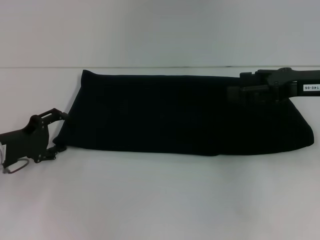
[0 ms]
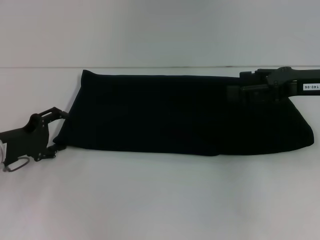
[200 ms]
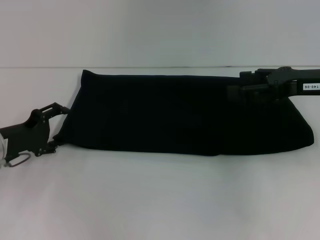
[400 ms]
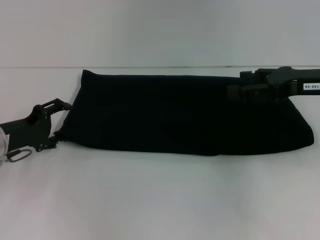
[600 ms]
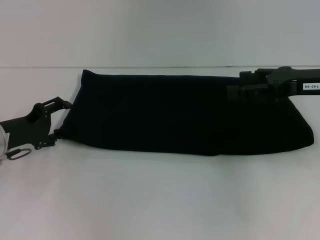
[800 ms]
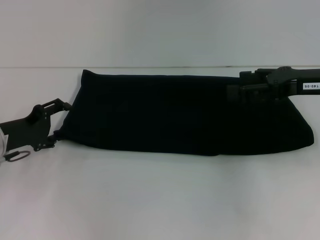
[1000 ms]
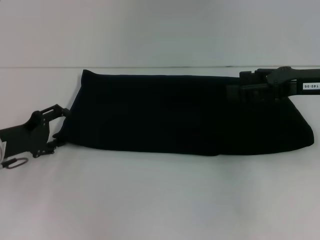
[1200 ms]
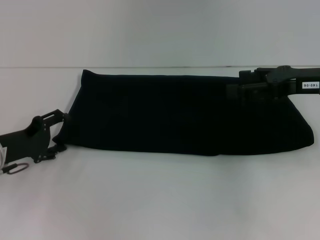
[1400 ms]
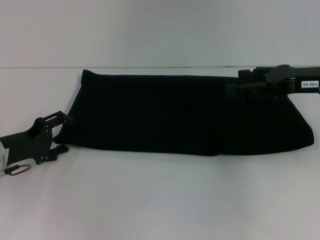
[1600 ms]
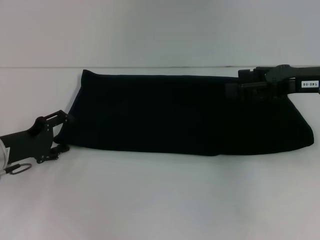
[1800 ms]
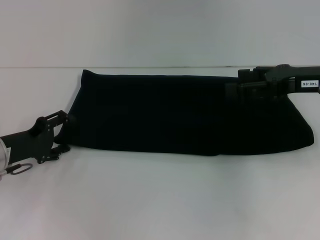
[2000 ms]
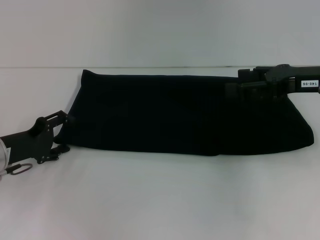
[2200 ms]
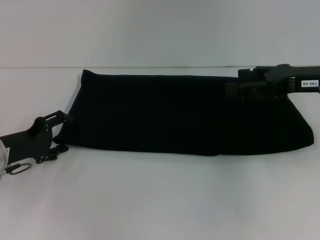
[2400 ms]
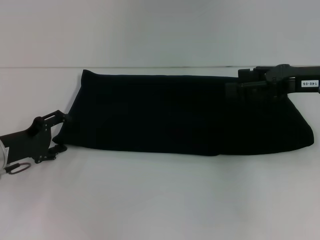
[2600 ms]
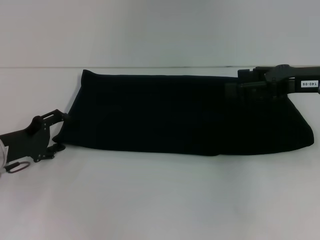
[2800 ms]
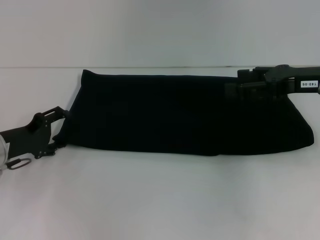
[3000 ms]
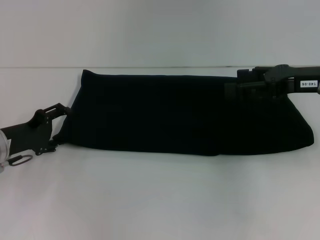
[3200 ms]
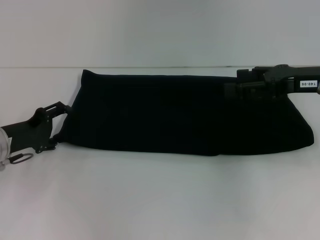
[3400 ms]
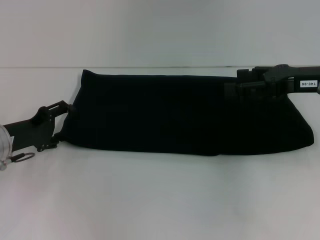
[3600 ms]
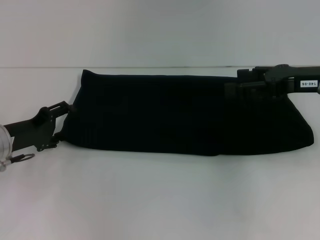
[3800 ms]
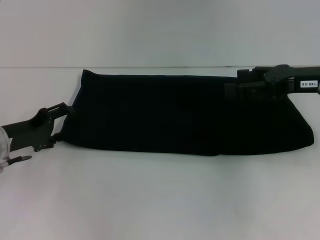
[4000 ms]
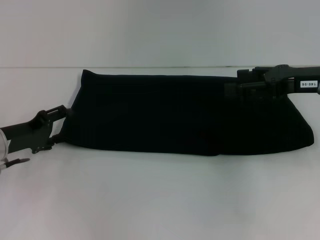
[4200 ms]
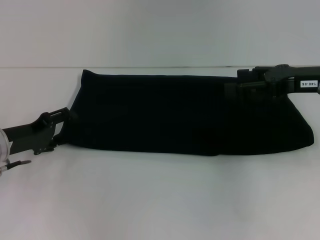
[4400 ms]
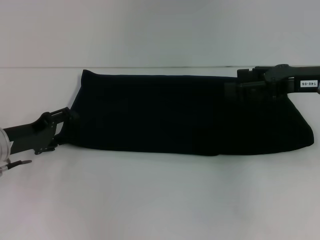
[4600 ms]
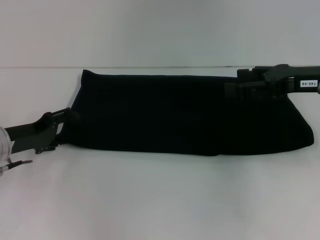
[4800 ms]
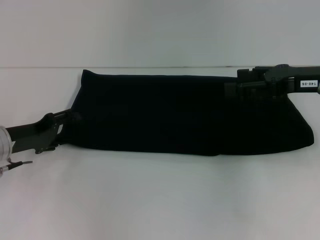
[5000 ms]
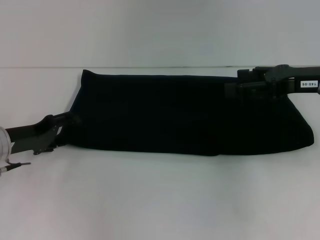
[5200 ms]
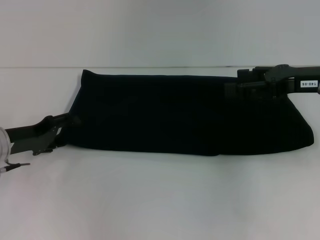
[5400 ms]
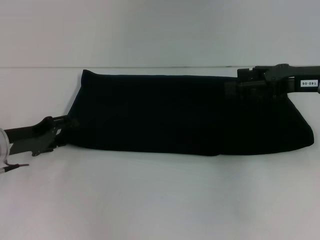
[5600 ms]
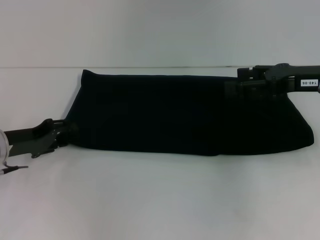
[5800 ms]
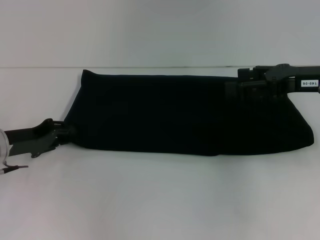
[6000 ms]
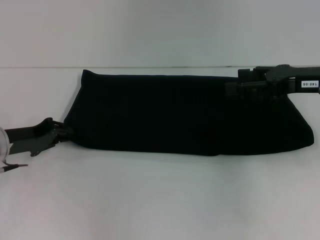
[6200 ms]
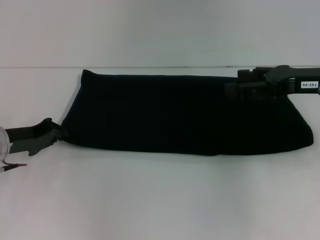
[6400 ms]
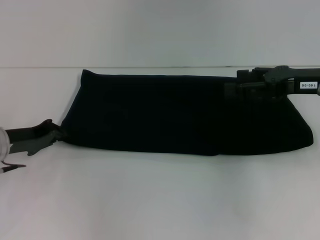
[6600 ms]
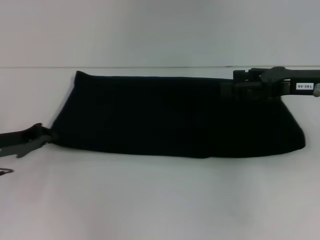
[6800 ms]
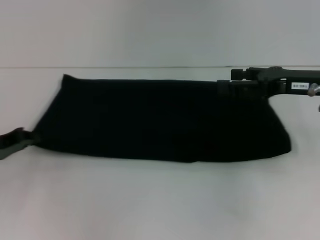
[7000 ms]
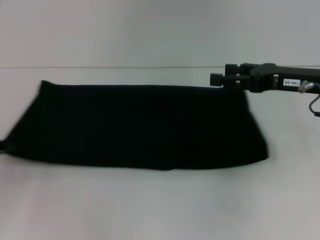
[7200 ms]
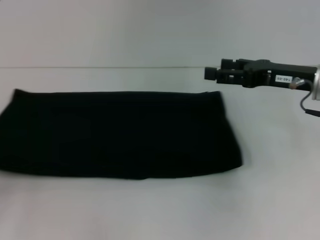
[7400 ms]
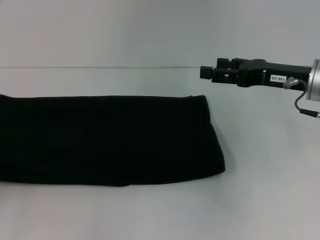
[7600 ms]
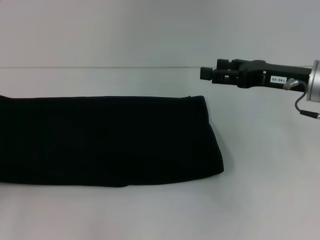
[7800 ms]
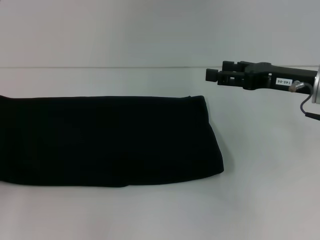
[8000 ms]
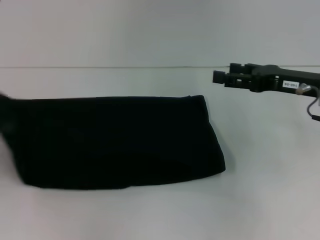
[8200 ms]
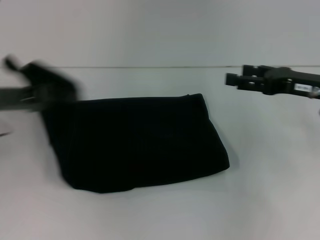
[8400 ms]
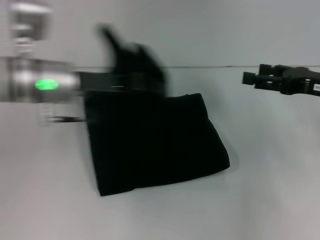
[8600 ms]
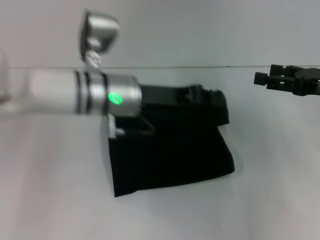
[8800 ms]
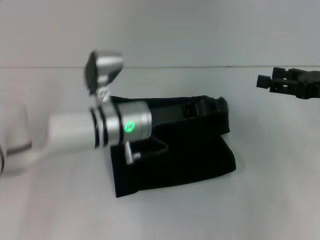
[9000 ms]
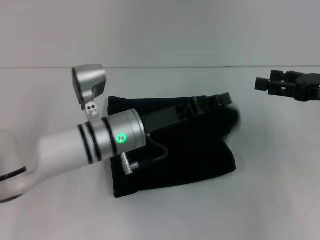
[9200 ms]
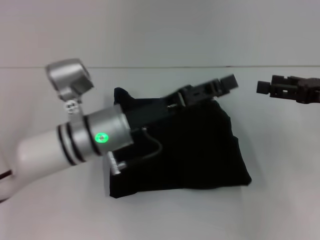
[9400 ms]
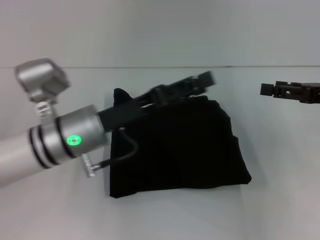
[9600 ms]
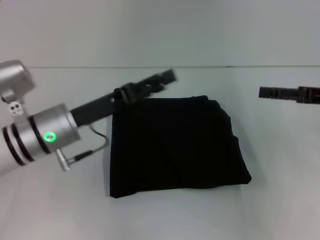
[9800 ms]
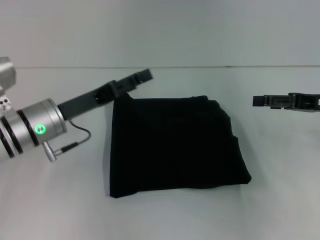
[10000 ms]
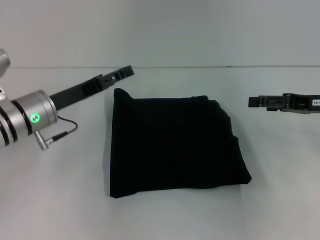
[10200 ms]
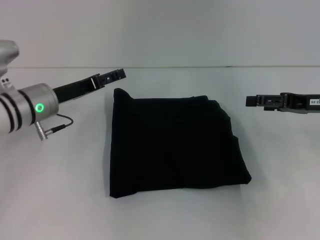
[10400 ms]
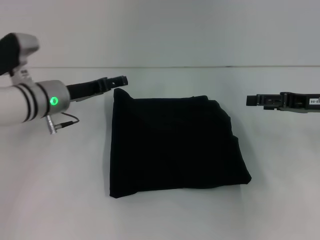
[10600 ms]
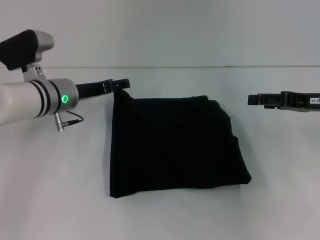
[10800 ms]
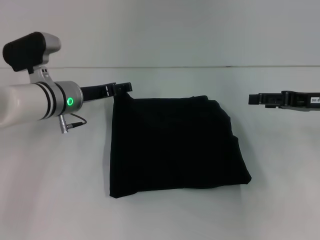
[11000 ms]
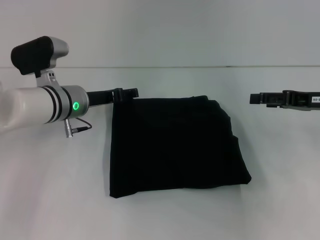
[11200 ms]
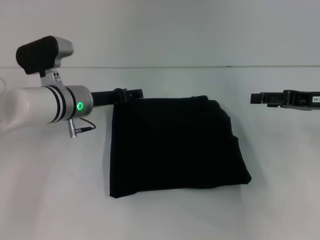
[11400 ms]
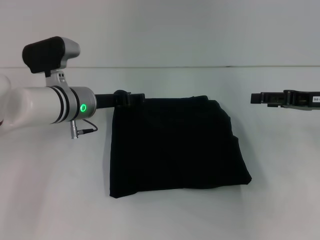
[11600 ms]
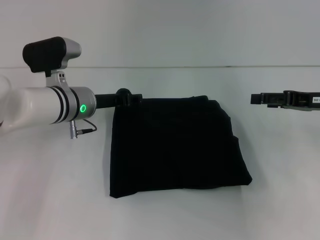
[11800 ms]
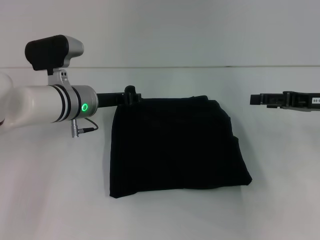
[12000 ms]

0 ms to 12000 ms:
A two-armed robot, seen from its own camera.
Step, 0 ms to 9400 ms: Fold the clothes with your left hand.
0 ms to 1600 ms: The grippers stay close to where they were, moving slightly.
1600 ms to 3000 ms: Neither gripper changes place.
3000 ms to 4400 ms: The grippers make only small movements.
4400 ms to 6000 ms: The grippers stay close to where they were, moving slightly.
6000 ms to 7600 ms: The left gripper goes roughly 15 cm to the left and backward, and closes.
7600 ms to 9000 ms: The left gripper moves to the right, about 35 cm. The right gripper moves to the right, about 10 cm.
9000 ms to 10400 ms: The left gripper shifts approximately 15 cm to the left, and opens up.
10400 ms to 12000 ms: The left gripper heads to the right, covering about 5 cm.

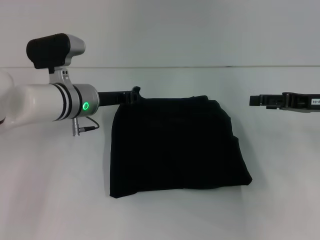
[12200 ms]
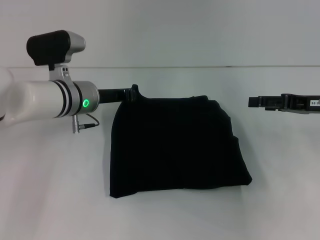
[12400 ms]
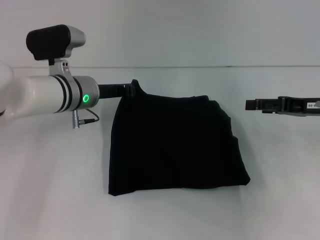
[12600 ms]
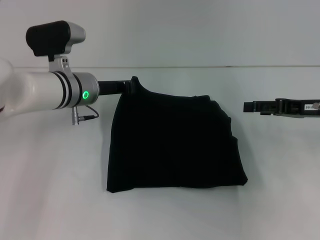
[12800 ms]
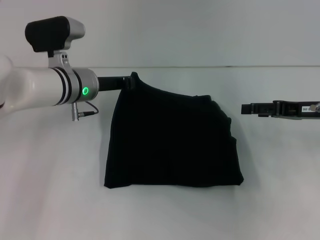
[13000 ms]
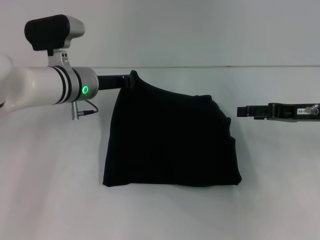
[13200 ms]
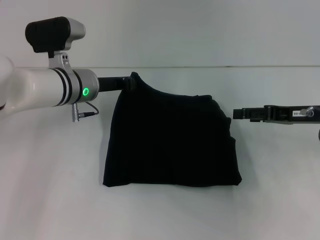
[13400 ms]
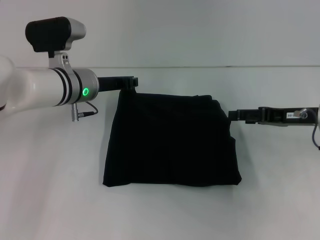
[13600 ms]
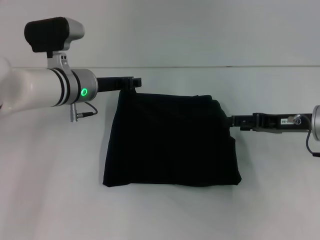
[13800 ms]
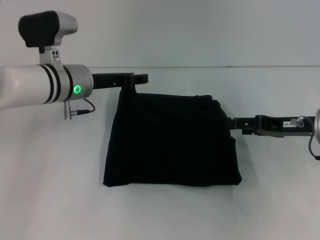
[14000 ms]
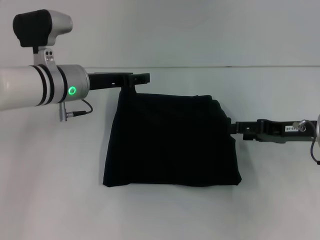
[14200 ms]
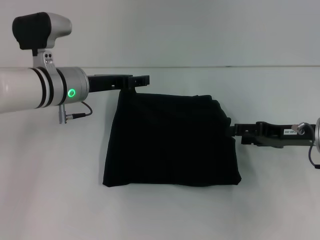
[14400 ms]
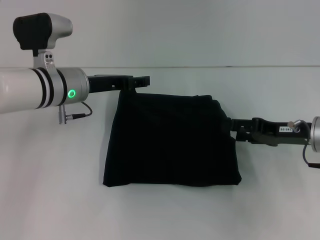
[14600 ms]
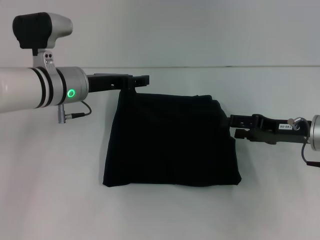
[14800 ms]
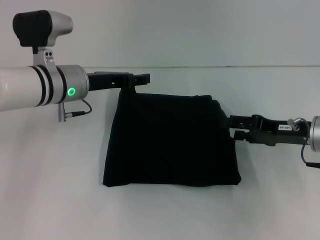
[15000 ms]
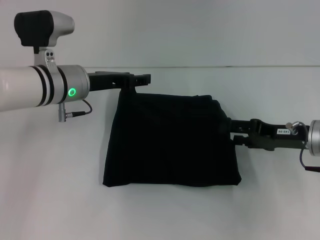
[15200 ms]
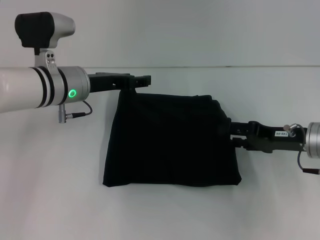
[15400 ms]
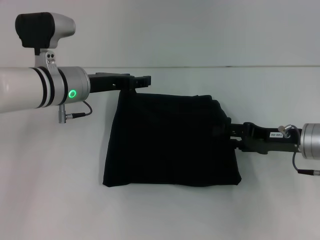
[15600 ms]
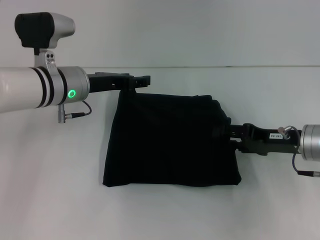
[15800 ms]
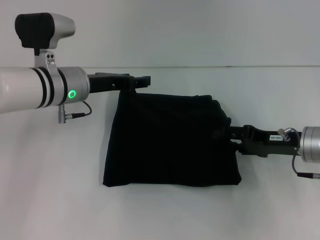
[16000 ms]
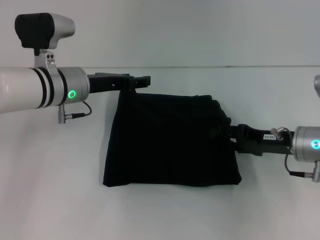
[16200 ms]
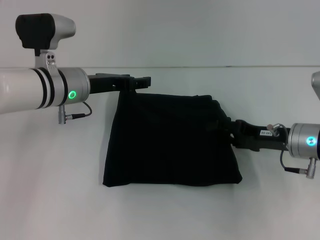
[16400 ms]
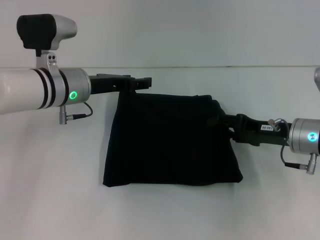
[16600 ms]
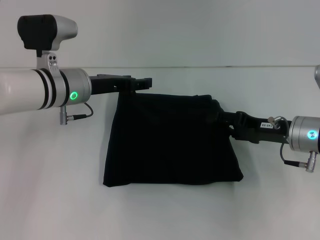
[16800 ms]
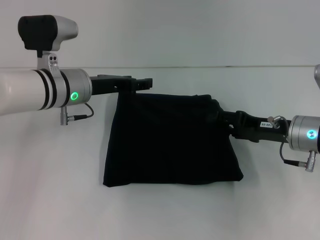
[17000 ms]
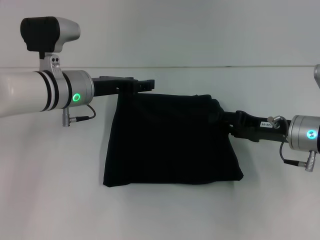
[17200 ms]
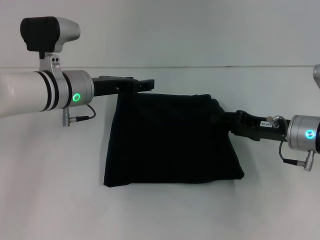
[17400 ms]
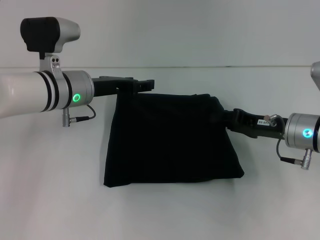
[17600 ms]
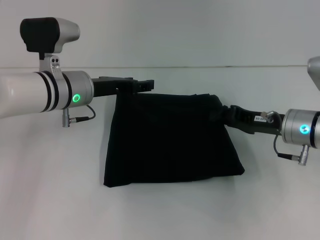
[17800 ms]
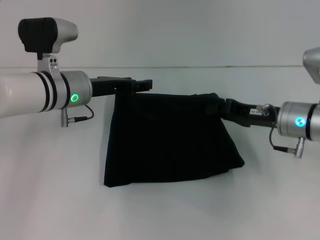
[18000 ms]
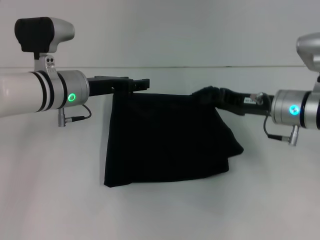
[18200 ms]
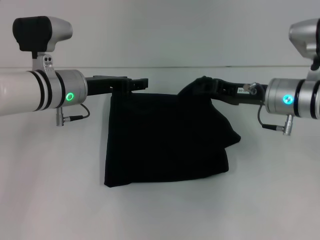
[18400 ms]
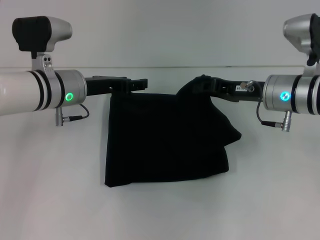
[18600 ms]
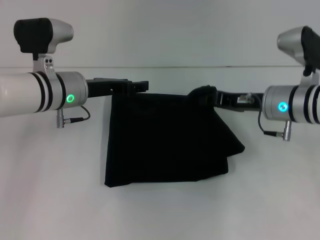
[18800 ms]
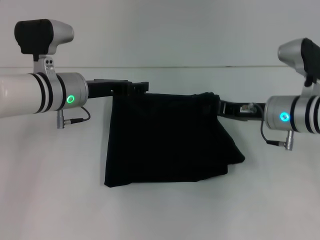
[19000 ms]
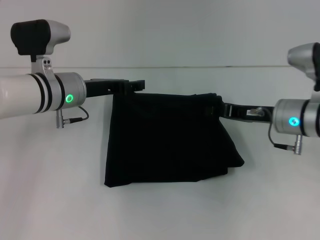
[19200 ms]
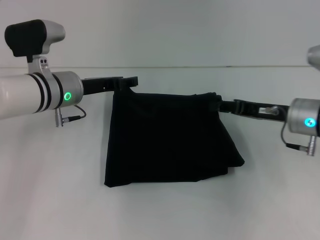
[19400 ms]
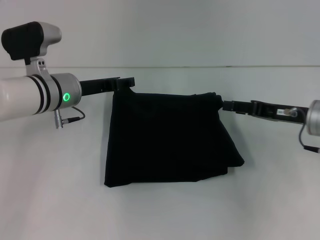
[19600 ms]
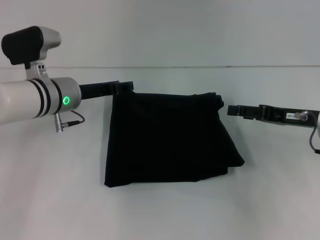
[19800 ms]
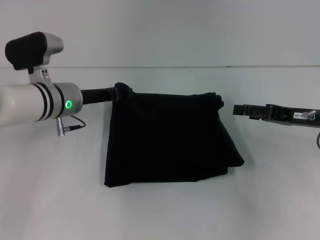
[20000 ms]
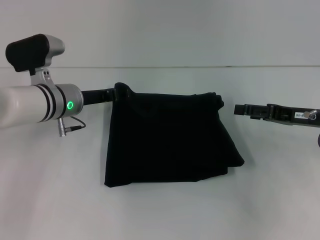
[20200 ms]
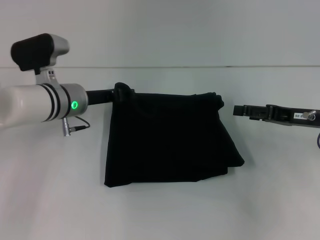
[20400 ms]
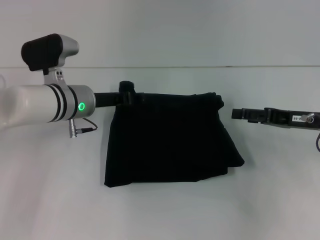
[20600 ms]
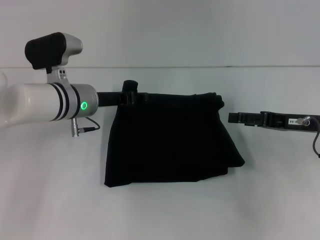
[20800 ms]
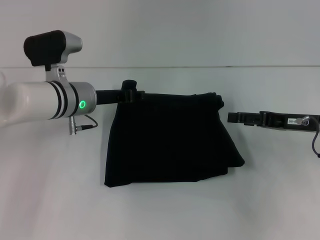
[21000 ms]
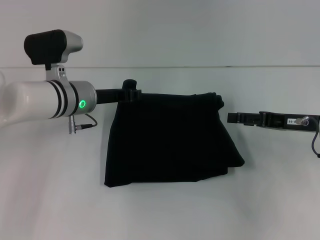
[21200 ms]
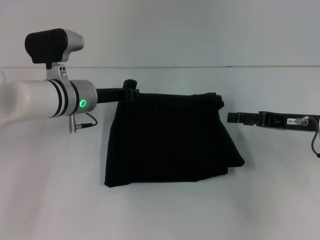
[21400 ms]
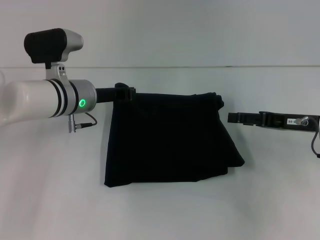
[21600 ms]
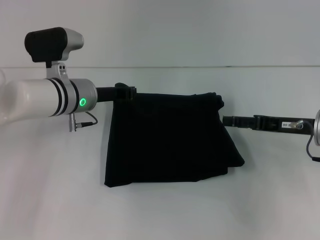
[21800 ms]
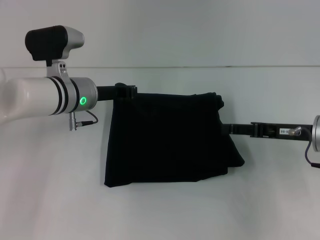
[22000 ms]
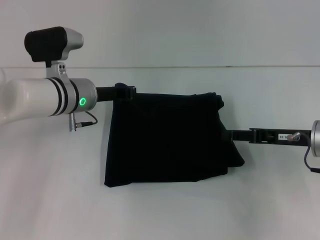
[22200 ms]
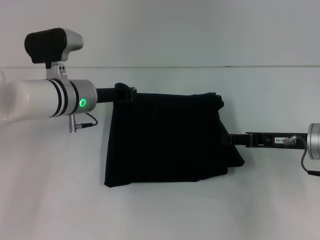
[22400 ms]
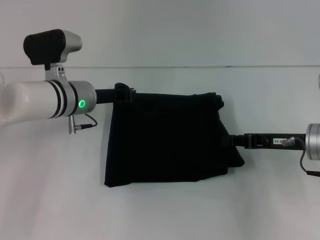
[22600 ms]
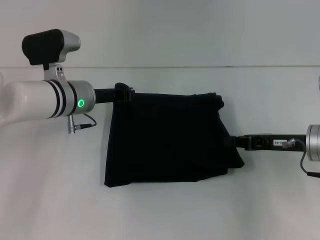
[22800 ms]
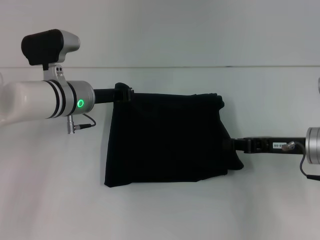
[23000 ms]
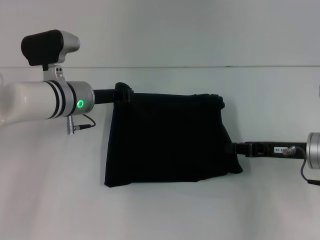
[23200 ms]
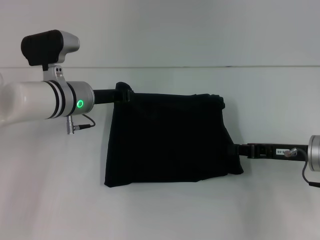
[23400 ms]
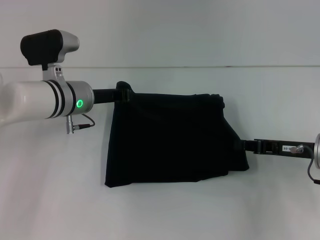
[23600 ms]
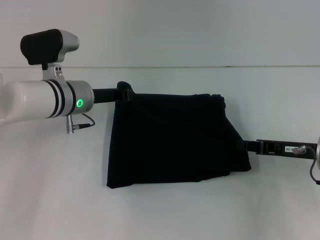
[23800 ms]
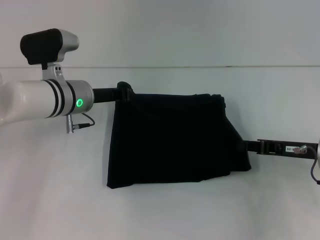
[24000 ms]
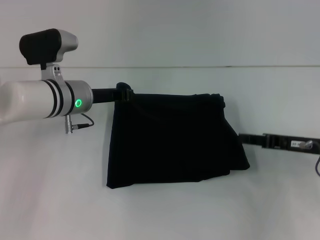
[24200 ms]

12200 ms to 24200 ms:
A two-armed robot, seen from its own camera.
12200 ms to 13800 ms: The right gripper changes place by roughly 5 cm.
13800 ms to 15200 ms: The left gripper opens its fingers.
15200 ms to 16600 ms: The grippers stay close to where they were, moving slightly.
16600 ms to 18200 ms: The right gripper ends up about 5 cm from where it was, and closes.
18200 ms to 19800 ms: The right gripper goes some 5 cm to the right, and opens.
19800 ms to 21200 ms: The grippers move only a little.
21200 ms to 22600 ms: The left gripper closes up. The right gripper closes up.
22600 ms to 24200 ms: The grippers make only small movements.
